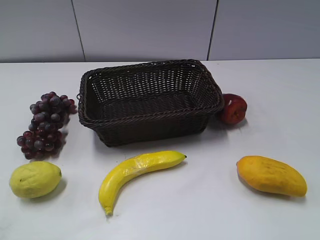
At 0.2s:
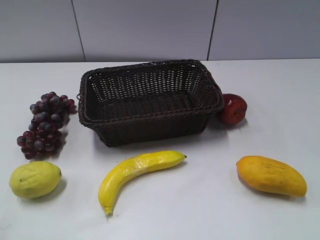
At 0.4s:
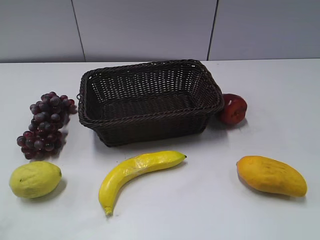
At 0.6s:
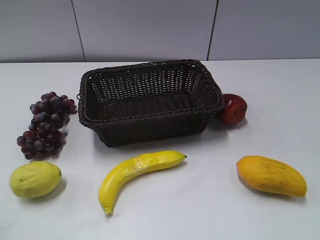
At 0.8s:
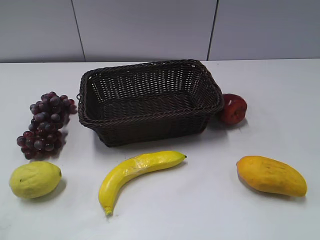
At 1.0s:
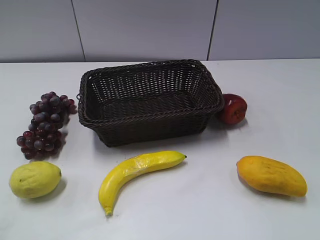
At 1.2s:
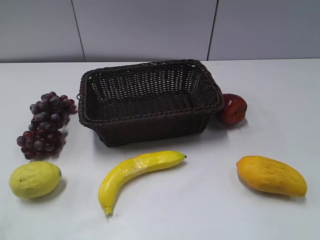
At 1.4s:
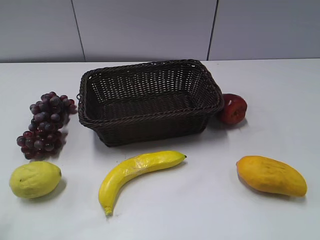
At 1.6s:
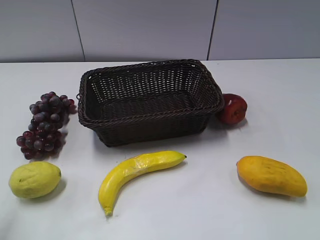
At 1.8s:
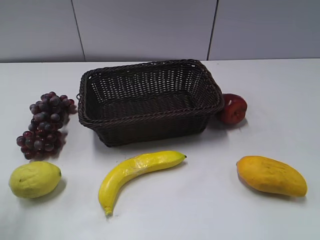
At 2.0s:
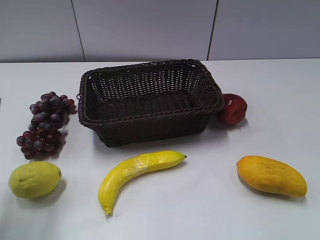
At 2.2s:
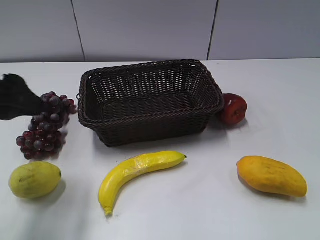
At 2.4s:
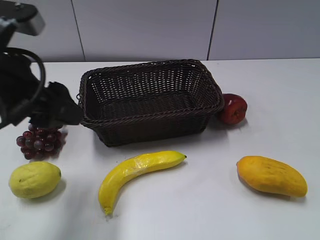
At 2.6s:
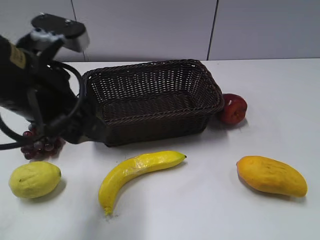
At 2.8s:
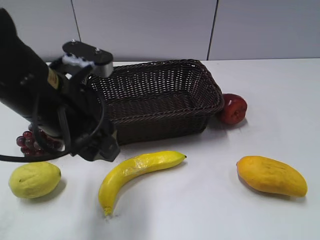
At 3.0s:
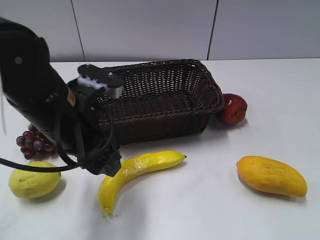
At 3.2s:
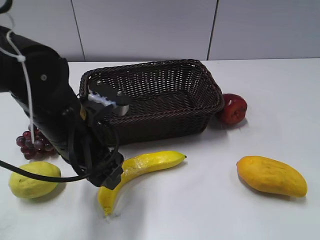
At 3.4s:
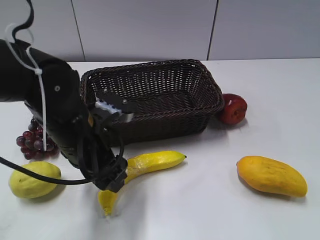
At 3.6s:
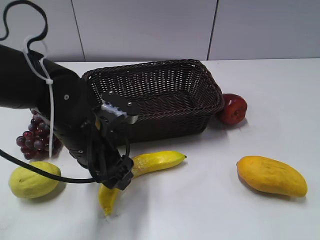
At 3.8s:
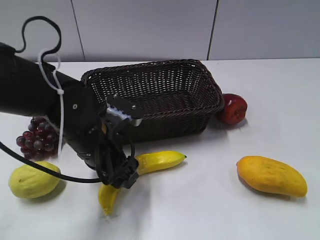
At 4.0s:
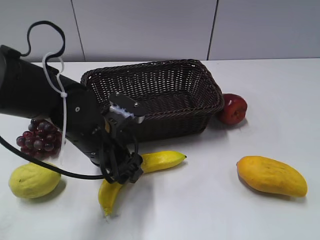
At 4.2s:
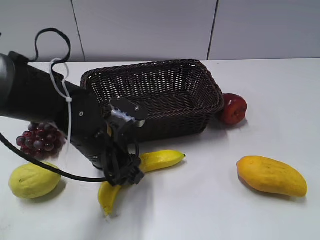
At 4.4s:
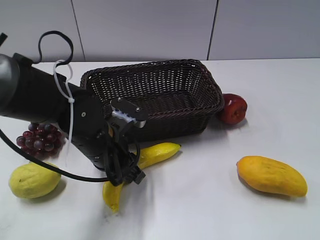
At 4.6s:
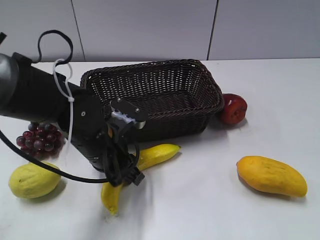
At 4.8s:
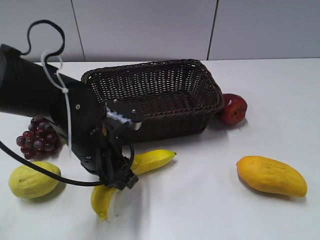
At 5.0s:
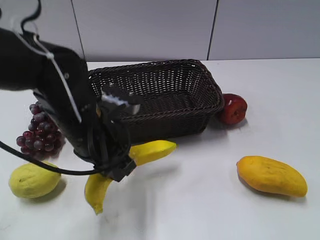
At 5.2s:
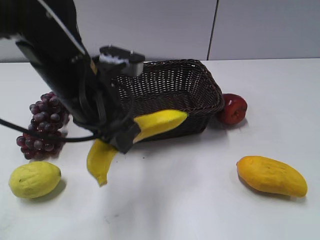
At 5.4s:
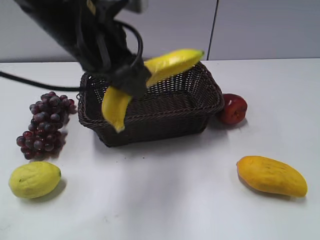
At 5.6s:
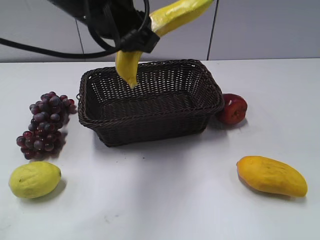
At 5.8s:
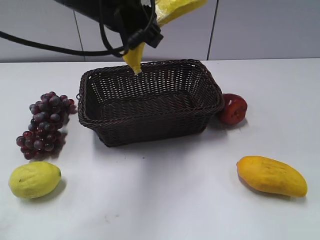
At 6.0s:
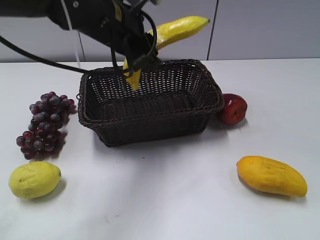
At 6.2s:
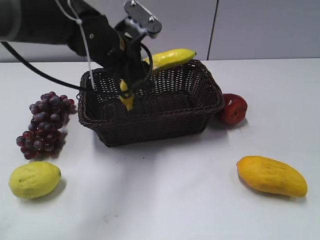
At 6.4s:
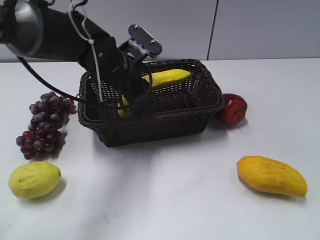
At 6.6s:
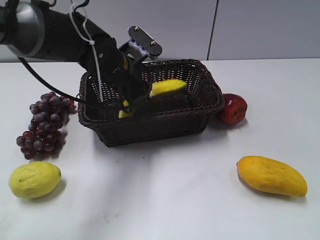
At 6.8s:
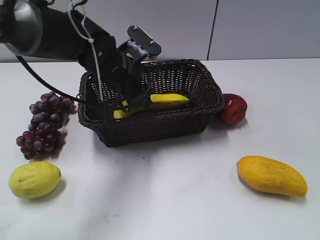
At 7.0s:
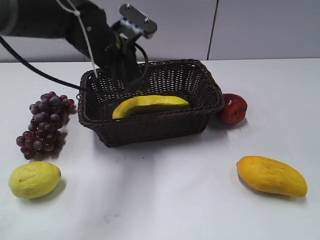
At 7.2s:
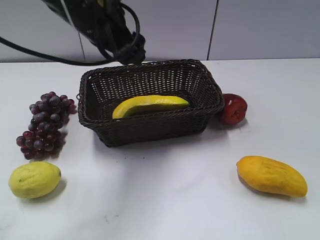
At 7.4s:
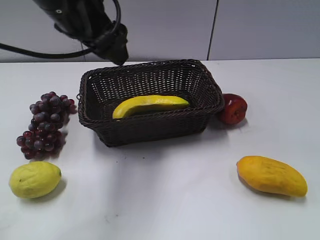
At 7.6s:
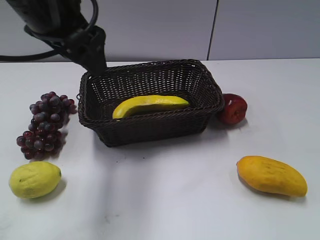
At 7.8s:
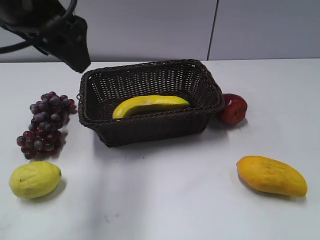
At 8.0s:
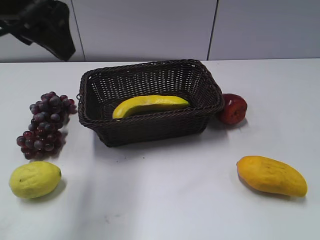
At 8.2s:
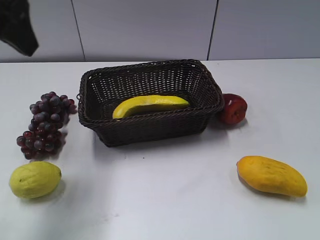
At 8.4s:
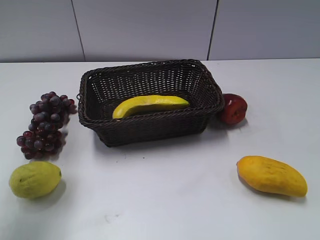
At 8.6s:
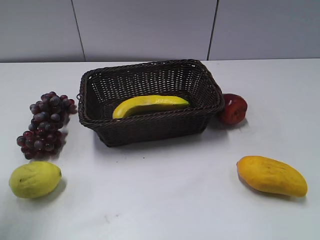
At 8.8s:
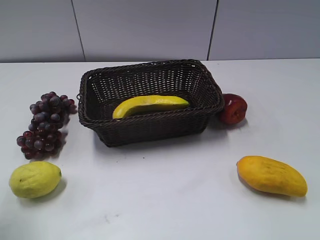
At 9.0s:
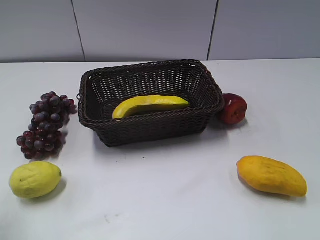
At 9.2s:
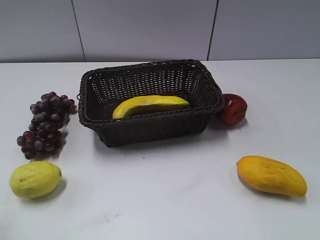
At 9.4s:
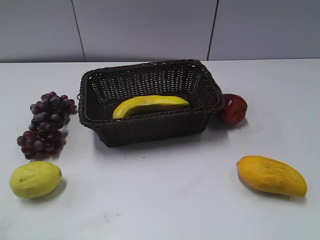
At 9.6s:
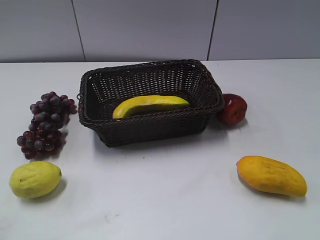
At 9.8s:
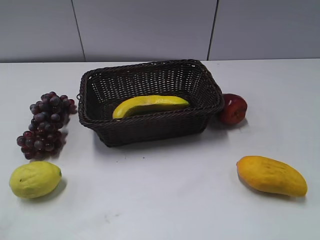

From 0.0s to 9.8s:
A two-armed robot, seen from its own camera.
Step, from 2.0s to 4.6s: Grasp the banana with left gripper.
Step, from 4.8s to 7.0s: Place the banana in the basket with left gripper.
From 1.4s to 2.8s: The left gripper goes about 25 cm to the right and forward.
From 2.8s to 4.2s: The left gripper travels downward by some 10 cm, and closes up.
From 4.2s to 5.6s: The left gripper goes roughly 20 cm upward, and closes its fingers.
From 5.6s to 7.0s: The left gripper heads downward and forward, covering approximately 10 cm, and opens up.
From 7.0s to 8.4s: The left gripper shifts approximately 25 cm to the left, upward and backward.
From 8.4s to 9.8s: The left gripper travels backward and downward by some 20 cm.

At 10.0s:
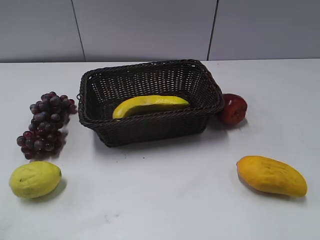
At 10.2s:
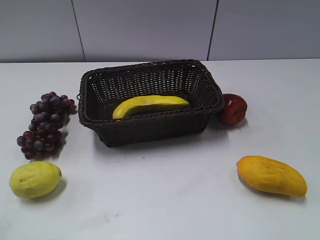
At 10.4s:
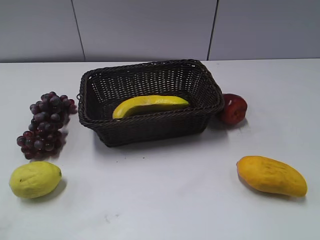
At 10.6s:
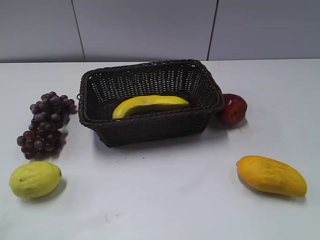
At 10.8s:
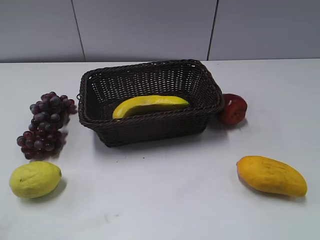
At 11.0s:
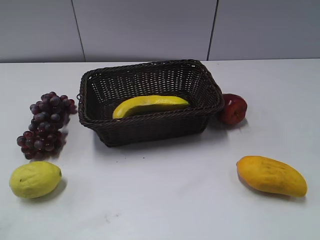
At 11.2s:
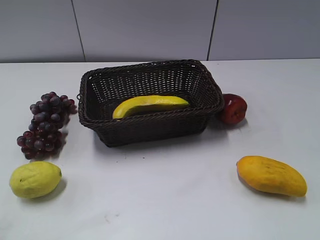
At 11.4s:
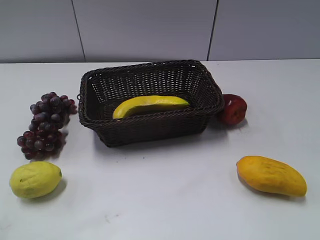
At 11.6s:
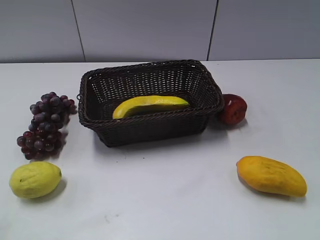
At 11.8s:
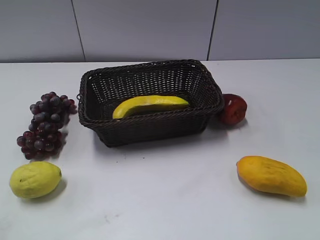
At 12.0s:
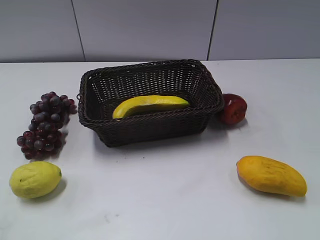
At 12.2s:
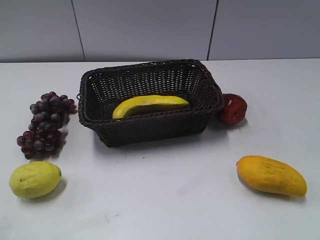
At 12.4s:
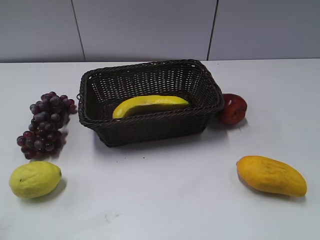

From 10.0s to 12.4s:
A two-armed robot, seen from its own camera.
From 11.2s to 12.4s: Both grippers stay put.

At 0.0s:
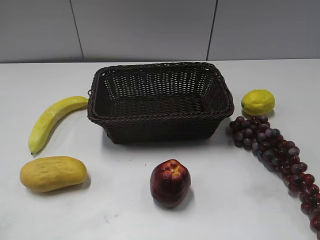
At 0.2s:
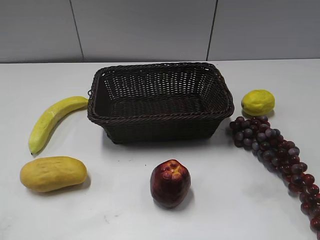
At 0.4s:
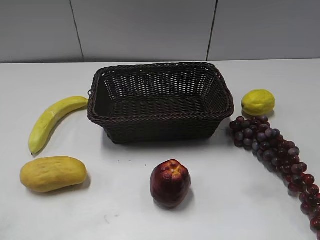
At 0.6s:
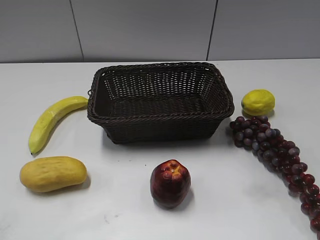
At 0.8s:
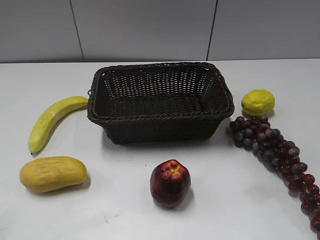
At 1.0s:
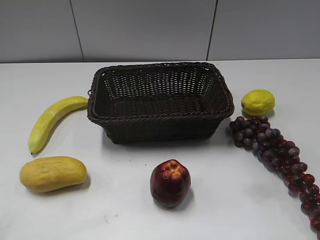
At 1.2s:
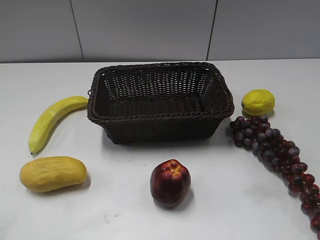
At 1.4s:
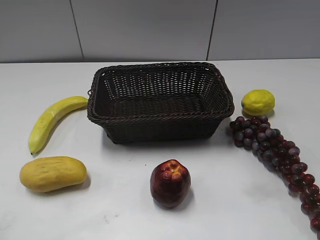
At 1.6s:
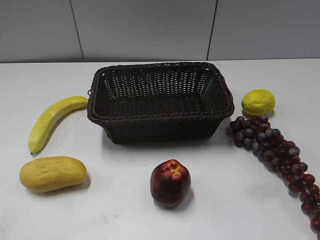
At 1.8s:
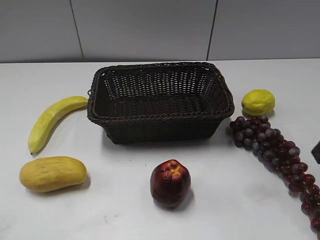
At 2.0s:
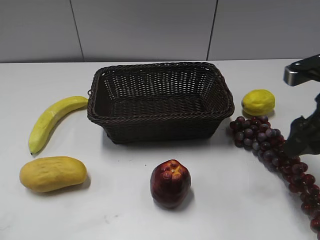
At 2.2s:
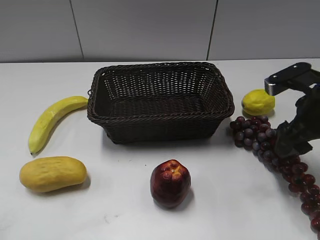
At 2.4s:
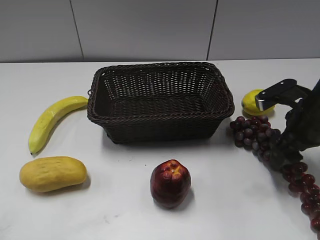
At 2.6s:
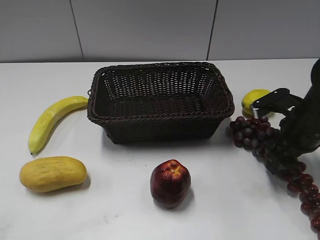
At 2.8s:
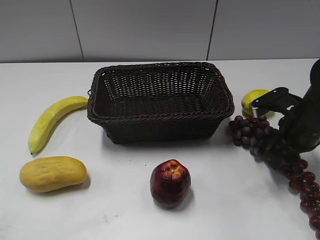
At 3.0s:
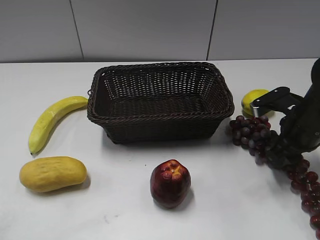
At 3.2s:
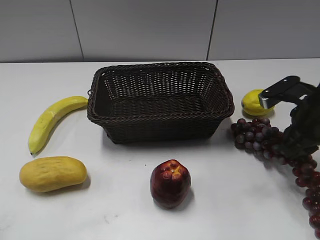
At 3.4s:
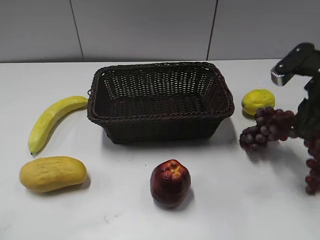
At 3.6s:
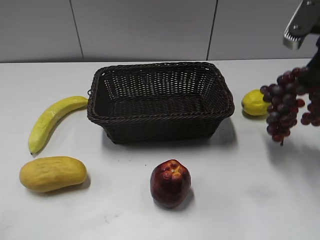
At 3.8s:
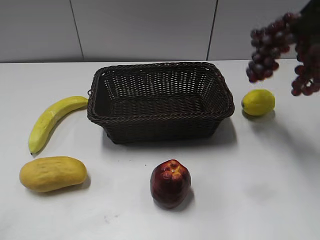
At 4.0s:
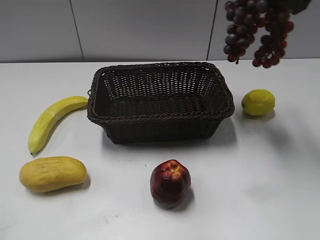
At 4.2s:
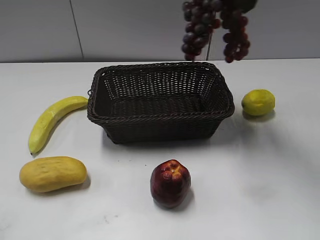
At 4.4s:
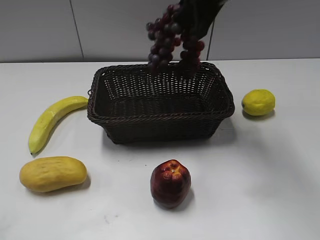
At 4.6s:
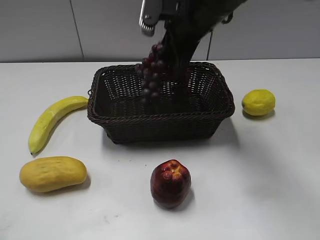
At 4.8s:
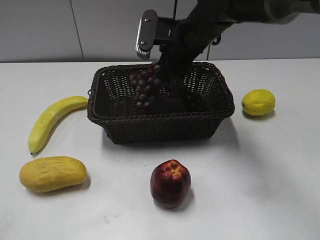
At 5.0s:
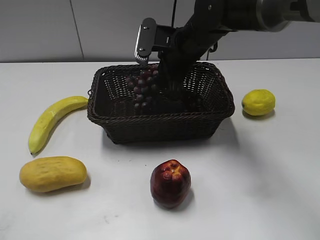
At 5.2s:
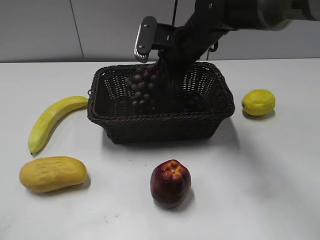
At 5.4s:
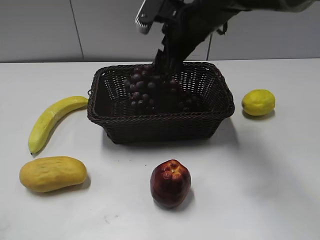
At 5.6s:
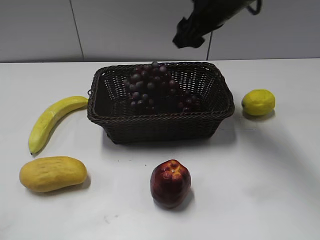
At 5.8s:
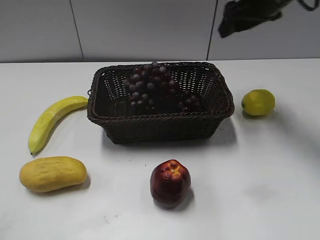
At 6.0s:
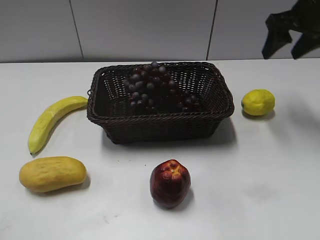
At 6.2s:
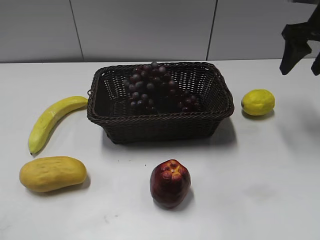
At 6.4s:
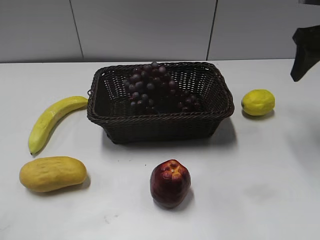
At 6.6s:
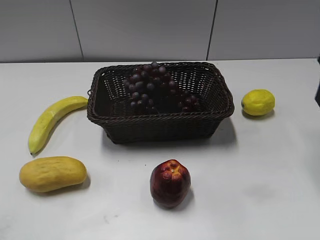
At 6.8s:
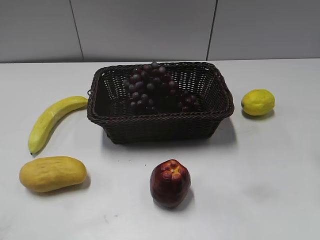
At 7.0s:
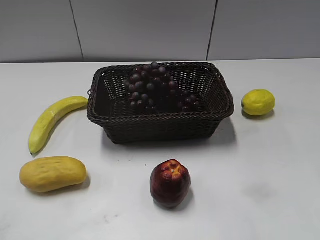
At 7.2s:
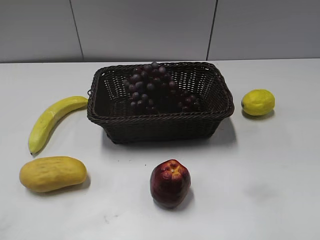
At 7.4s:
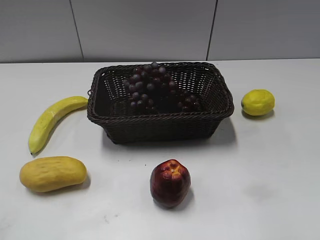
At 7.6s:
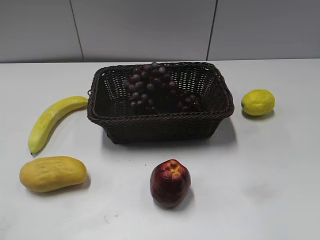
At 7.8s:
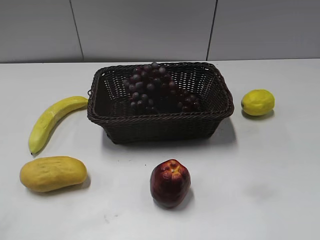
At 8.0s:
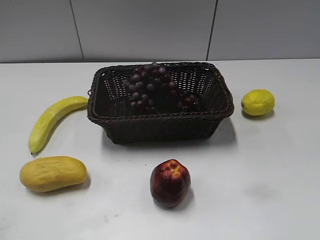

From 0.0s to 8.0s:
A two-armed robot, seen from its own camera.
Step, from 1.8s to 2.6s: Grasp the grape with right gripper.
Step, from 3.0s to 5.2s: Place the grape in the basket with right gripper.
From 1.6s to 3.2s: The right gripper moves forward and downward, some 15 cm, and closes up.
From 3.2s to 4.8s: The right gripper goes about 25 cm to the left and forward, and travels upward and back again, some 20 cm each way.
From 4.8s to 6.4s: The right gripper travels to the right by roughly 25 cm, and opens.
From 6.4s to 8.0s: The right gripper is displaced backward by approximately 30 cm.

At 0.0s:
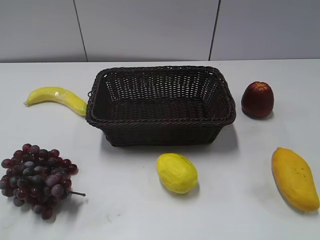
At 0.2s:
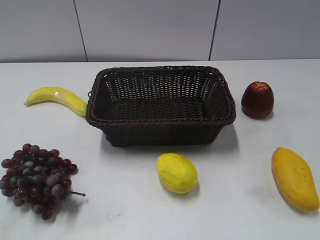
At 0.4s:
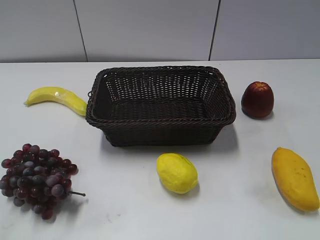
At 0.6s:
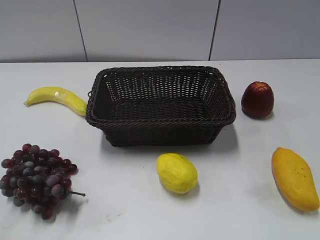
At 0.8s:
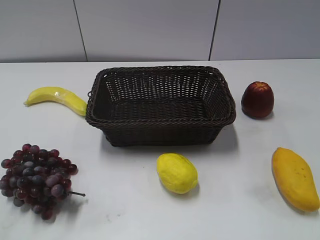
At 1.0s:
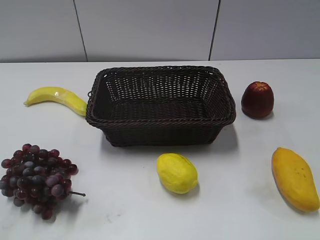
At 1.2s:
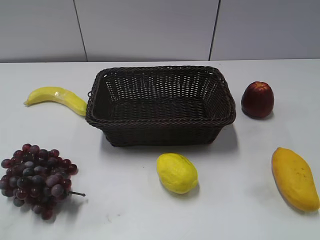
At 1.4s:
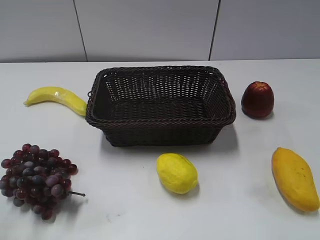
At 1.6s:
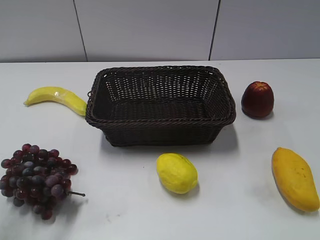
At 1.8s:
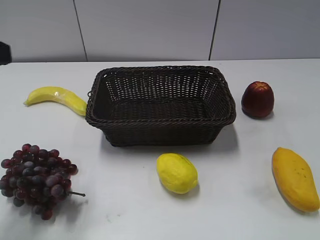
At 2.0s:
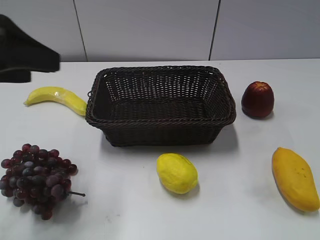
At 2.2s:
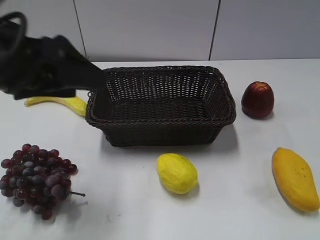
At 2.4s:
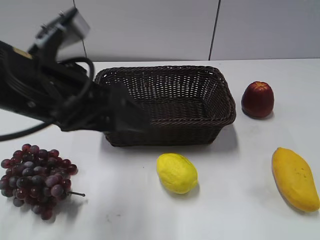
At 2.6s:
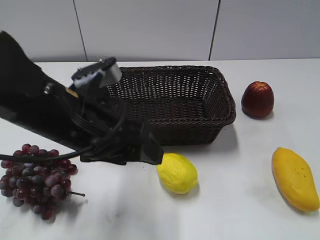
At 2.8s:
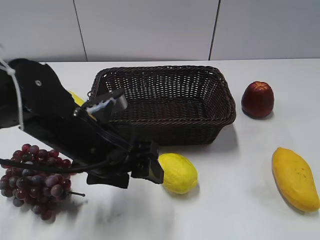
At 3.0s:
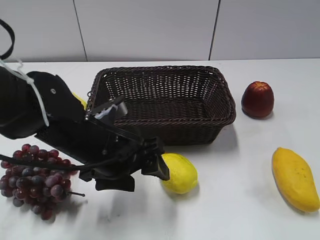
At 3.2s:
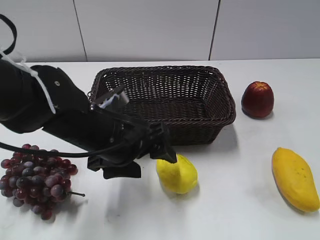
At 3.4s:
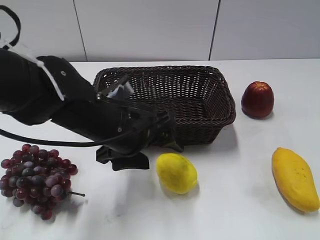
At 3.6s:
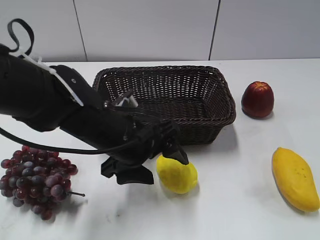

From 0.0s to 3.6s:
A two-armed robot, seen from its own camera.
From 1.8s to 3.6s: The left gripper goes about 25 cm to the right and downward, and opens.
